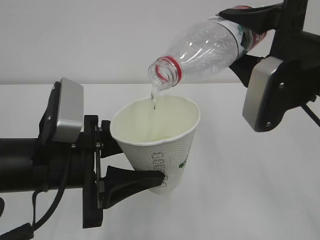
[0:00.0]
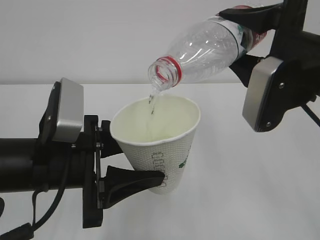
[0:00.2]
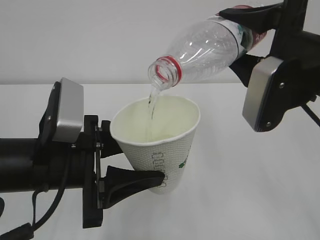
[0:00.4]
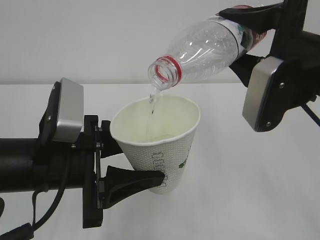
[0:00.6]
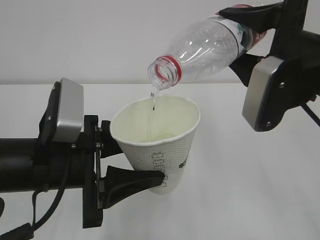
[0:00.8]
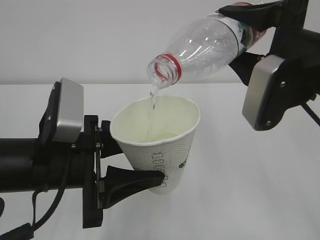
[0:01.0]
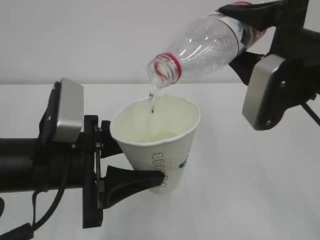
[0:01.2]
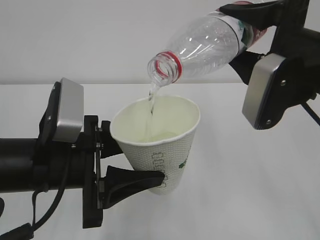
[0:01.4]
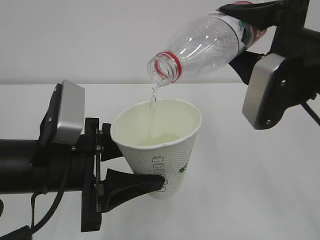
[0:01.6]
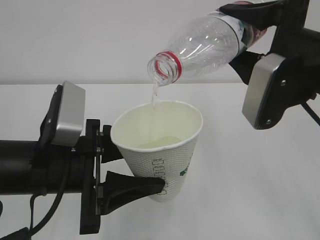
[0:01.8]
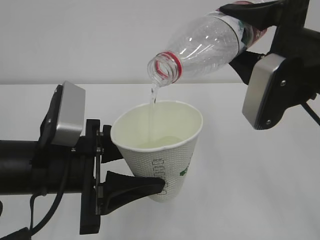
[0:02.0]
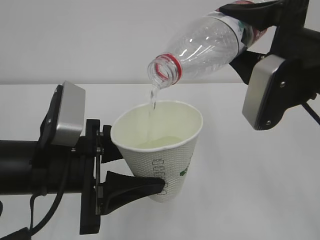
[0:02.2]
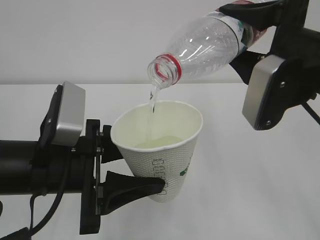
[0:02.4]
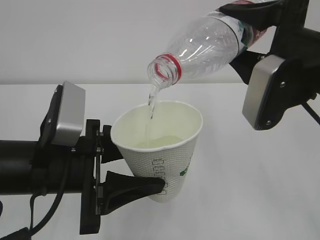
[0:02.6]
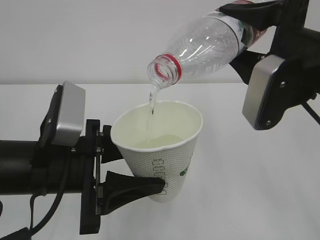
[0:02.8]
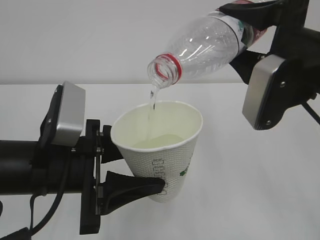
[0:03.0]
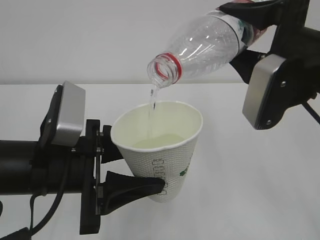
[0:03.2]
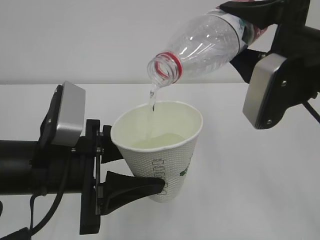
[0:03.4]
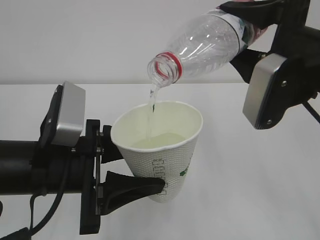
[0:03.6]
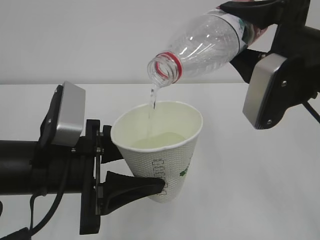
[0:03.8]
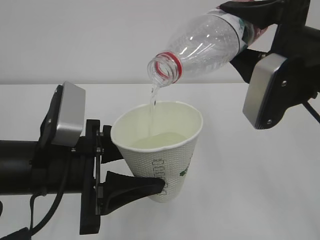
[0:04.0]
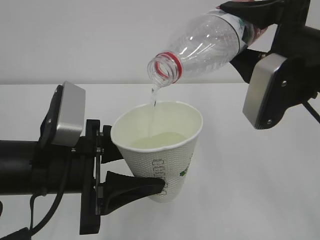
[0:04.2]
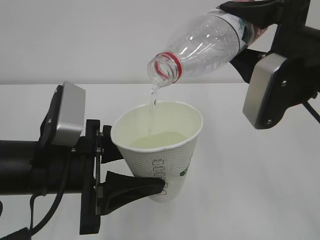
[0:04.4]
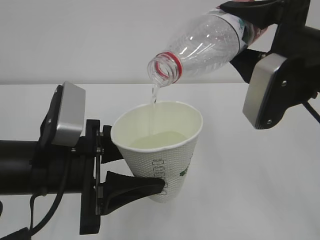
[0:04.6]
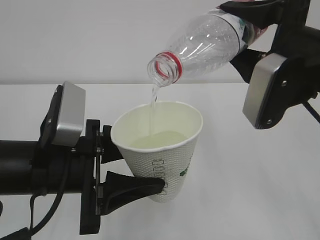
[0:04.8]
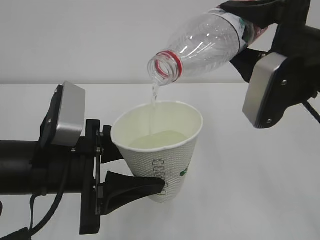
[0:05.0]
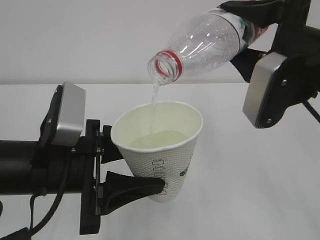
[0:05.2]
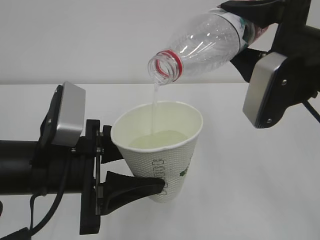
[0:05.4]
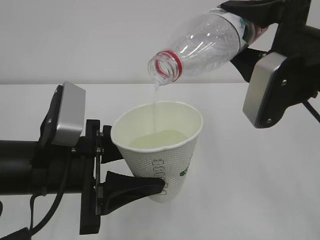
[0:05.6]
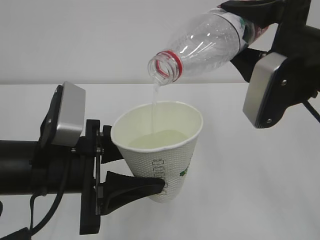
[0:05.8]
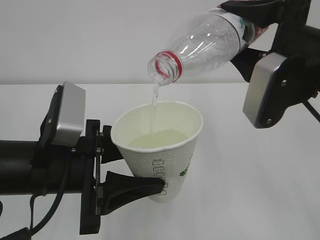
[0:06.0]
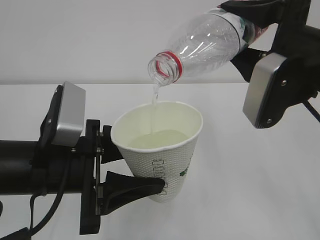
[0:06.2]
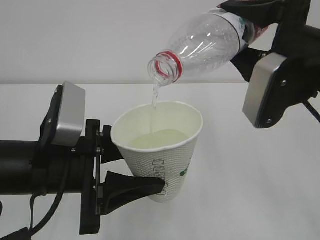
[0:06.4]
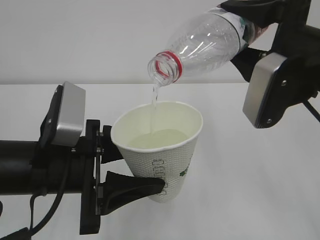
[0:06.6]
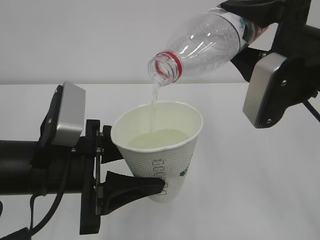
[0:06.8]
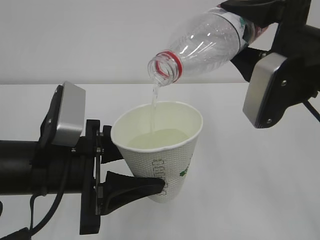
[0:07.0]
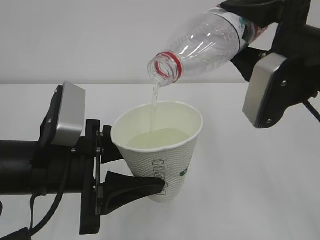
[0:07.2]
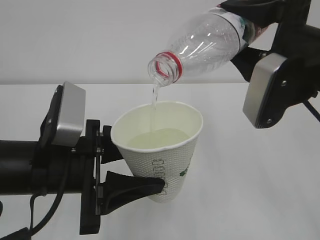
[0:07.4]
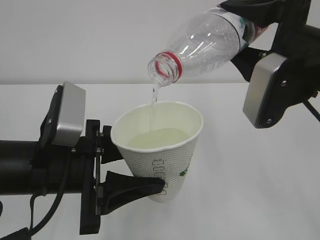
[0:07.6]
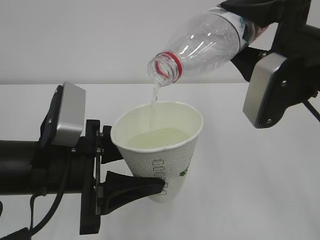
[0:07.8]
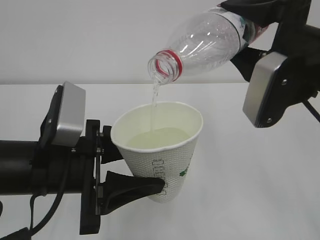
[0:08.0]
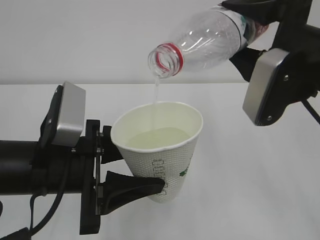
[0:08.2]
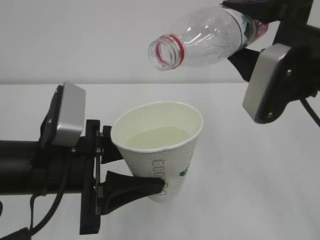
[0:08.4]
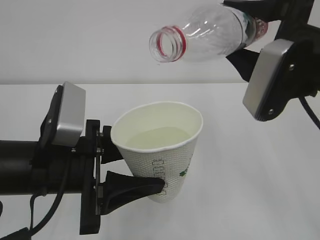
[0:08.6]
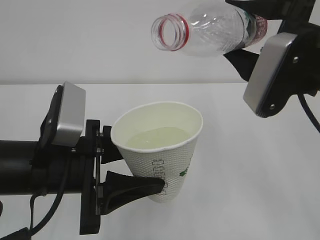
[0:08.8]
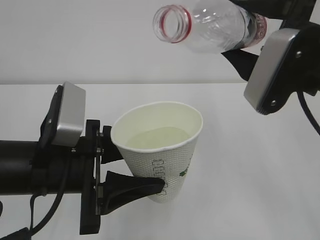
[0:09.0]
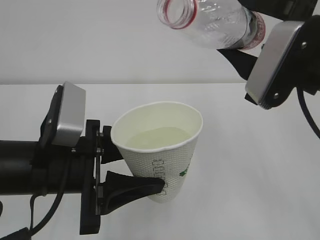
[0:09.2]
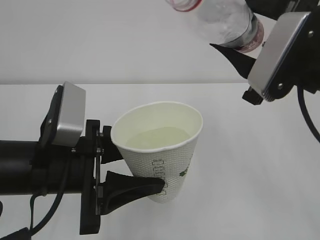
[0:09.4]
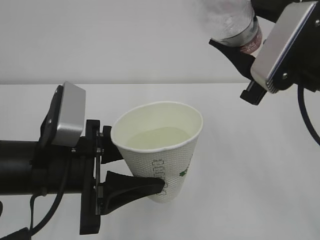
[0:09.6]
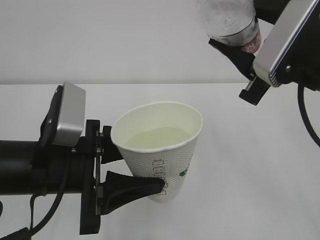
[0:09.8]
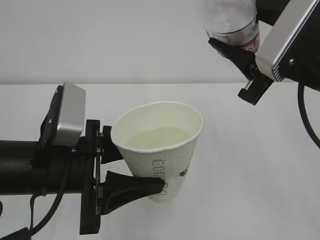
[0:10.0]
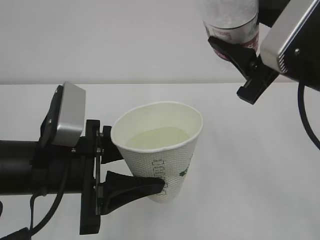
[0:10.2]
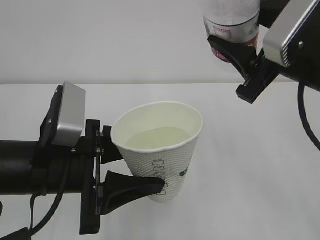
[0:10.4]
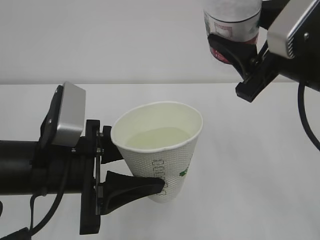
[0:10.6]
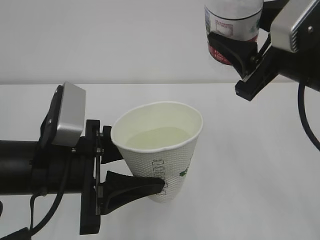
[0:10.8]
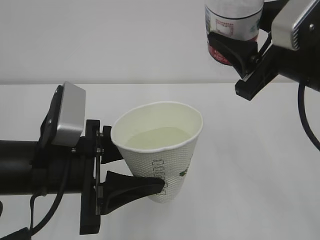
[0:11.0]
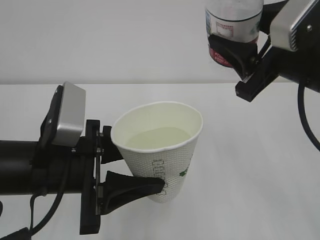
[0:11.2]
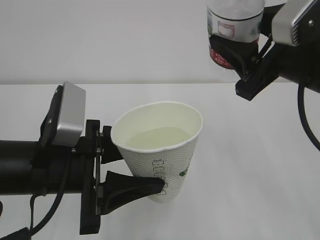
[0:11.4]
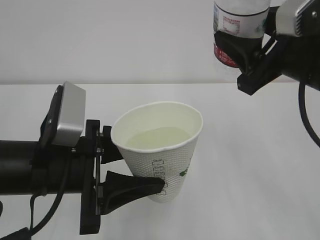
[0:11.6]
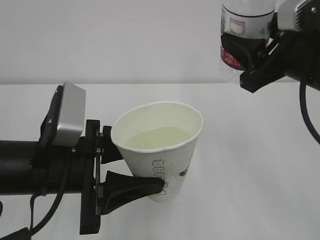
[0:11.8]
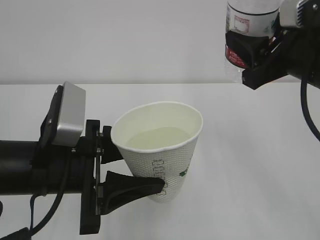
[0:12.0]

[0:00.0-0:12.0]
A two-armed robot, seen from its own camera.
0:00.0 to 0:07.6: The two grippers keep their place.
0:07.6 to 0:09.0: The grippers stay close to where they were, moving slightly.

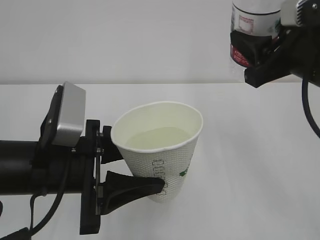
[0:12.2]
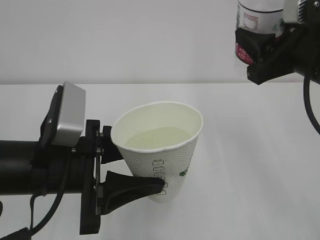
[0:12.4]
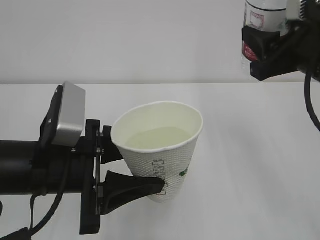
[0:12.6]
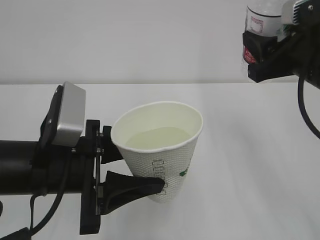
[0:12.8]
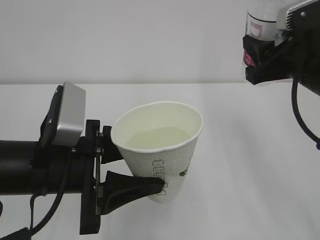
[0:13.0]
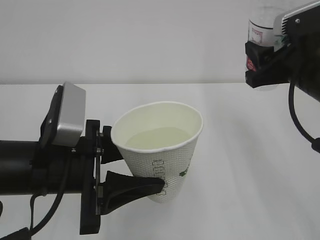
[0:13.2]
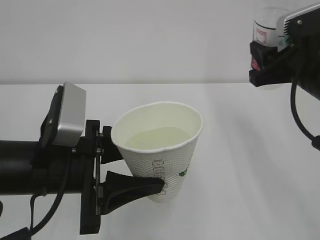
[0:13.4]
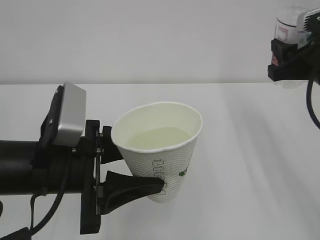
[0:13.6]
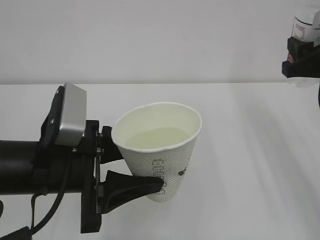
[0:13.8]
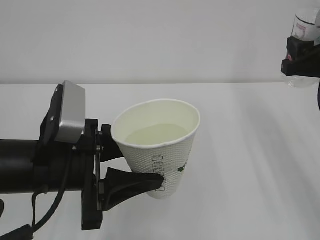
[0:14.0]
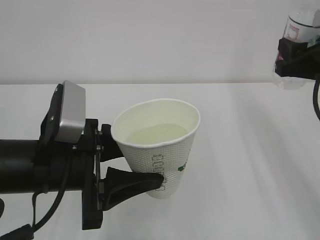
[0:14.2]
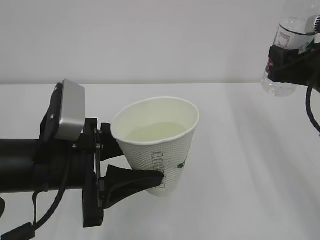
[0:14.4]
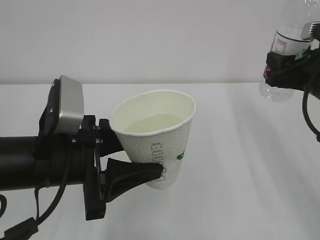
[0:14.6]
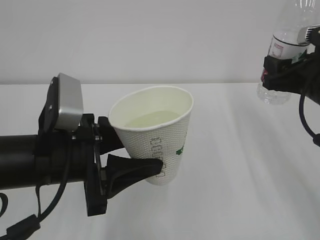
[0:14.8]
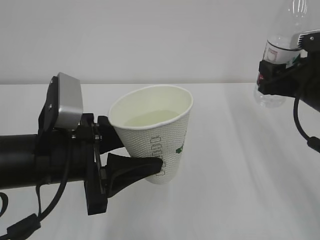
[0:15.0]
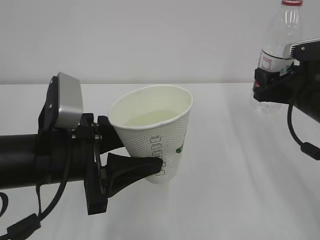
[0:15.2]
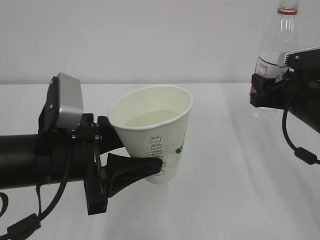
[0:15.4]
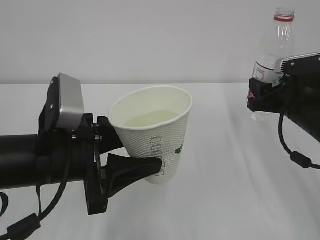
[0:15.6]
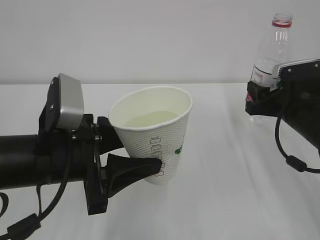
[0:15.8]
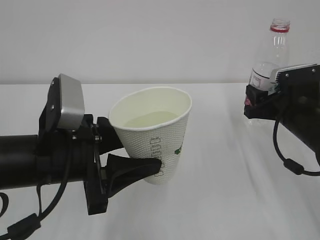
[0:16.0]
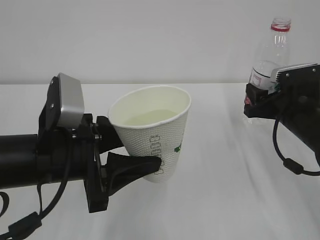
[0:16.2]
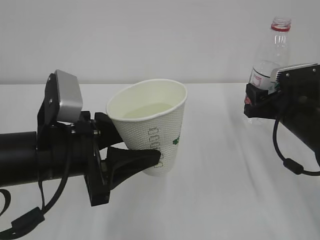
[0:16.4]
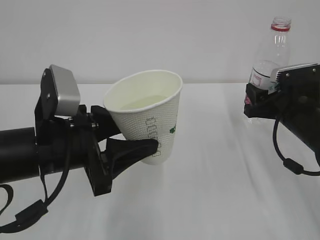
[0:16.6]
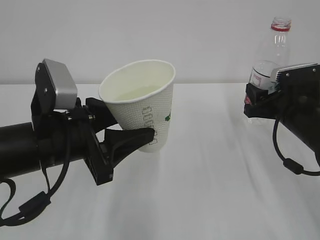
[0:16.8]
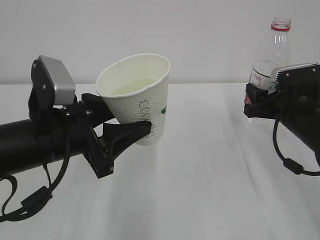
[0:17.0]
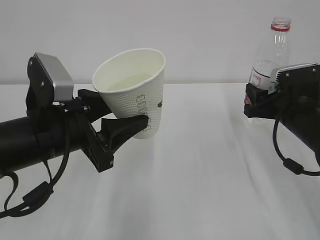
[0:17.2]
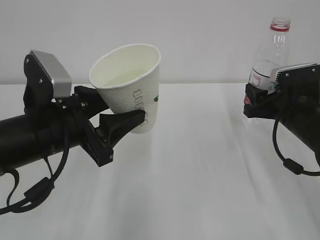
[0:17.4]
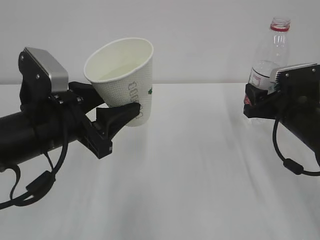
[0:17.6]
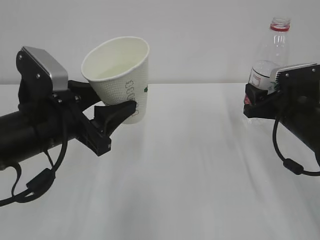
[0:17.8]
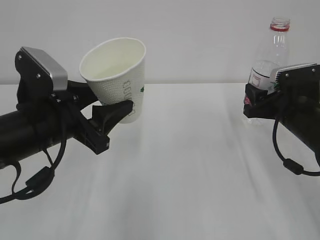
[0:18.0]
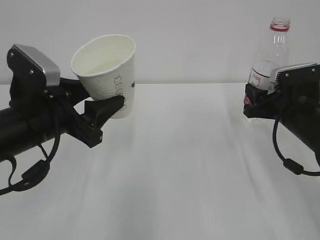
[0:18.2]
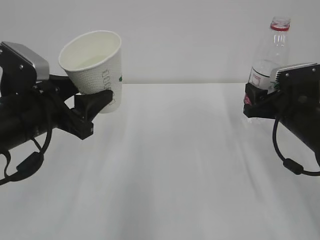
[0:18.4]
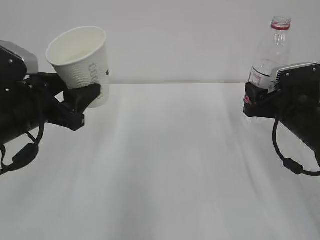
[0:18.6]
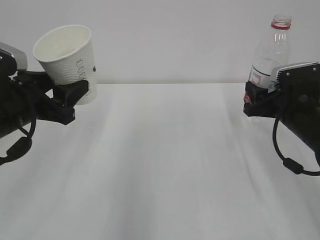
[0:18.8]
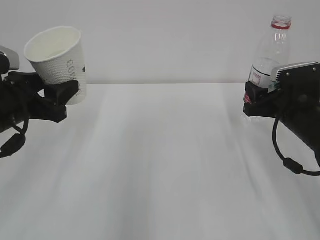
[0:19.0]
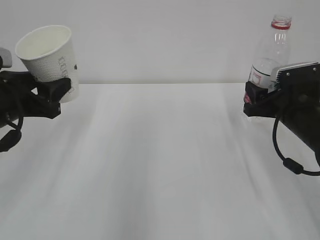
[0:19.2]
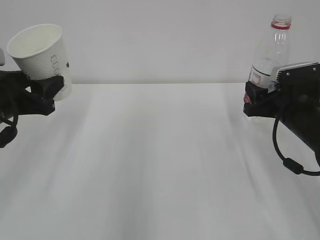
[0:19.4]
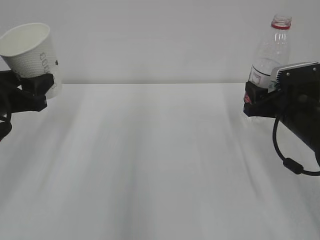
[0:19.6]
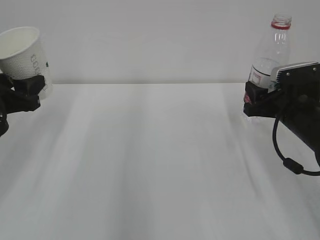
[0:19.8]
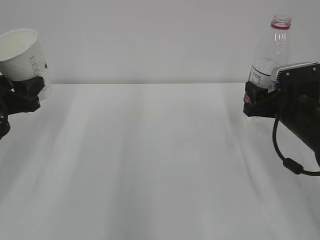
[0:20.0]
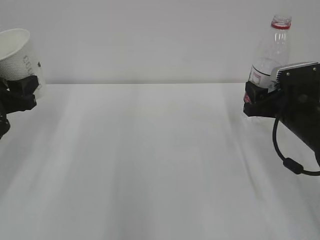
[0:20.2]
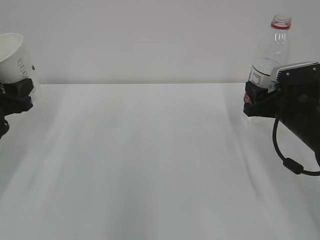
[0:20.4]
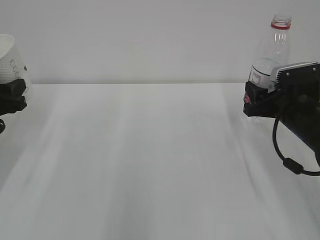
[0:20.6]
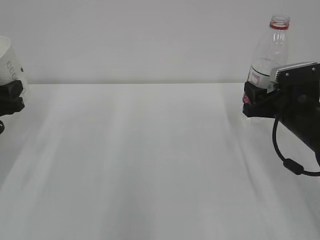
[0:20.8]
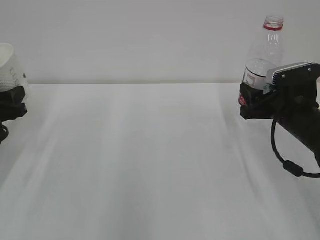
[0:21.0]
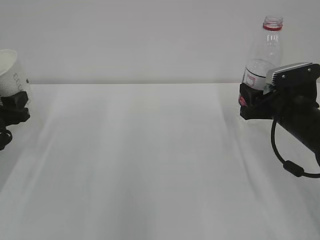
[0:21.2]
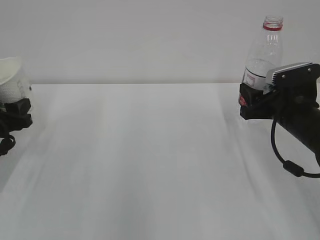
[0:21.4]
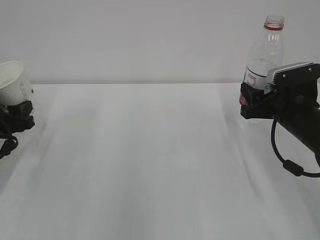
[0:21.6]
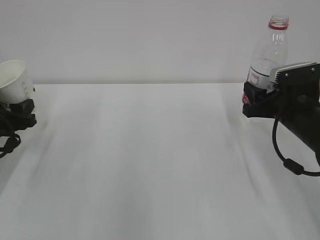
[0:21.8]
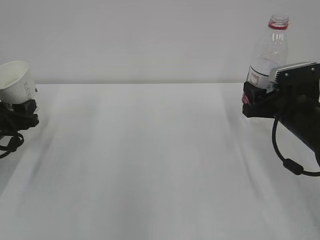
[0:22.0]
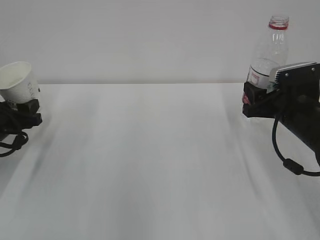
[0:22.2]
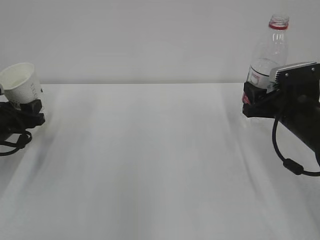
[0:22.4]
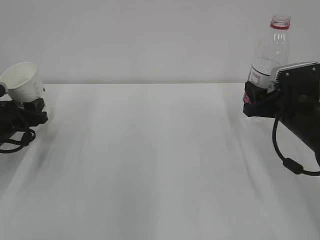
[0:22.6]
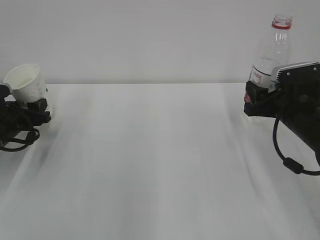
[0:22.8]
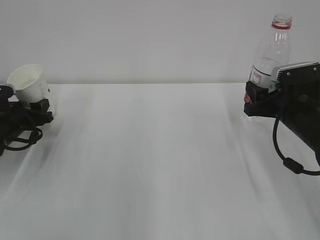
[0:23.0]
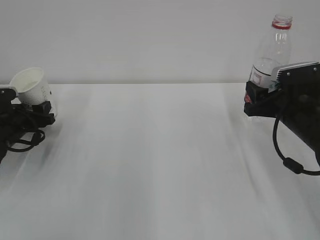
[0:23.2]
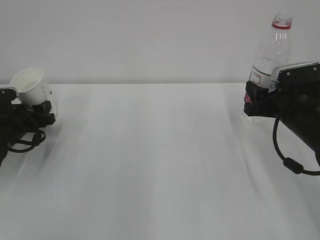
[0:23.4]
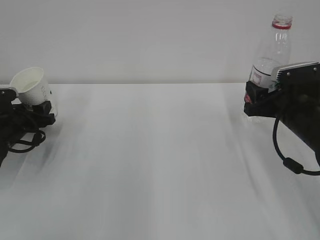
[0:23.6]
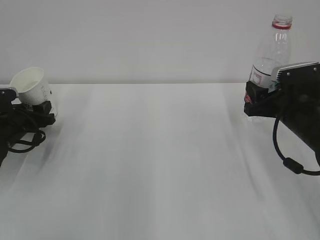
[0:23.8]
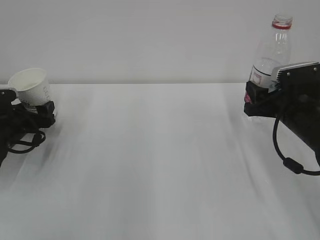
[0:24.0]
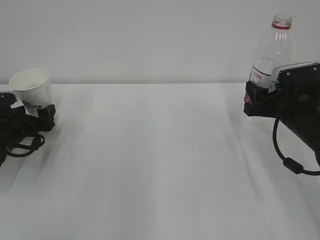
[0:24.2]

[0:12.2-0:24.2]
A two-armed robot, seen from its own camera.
0:12.2 to 0:13.8: The right gripper is displaced to the right by roughly 5 cm.
0:13.8 to 0:15.2: The right gripper goes approximately 5 cm downward.
0:15.2 to 0:16.6: The right gripper travels downward by some 5 cm.
0:18.2 to 0:19.8: The left gripper moves to the left, about 10 cm.
0:19.8 to 0:21.2: The left gripper goes some 5 cm downward.
0:21.2 to 0:22.6: The left gripper heads forward, covering roughly 5 cm.
0:22.6 to 0:24.2: The left gripper opens its fingers.
